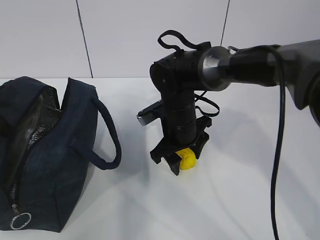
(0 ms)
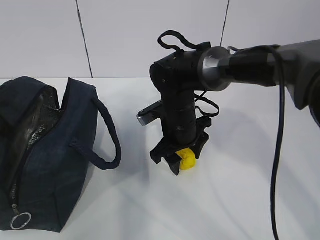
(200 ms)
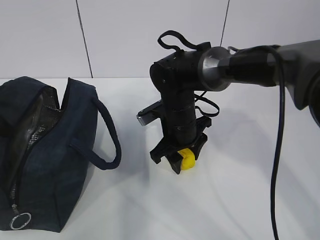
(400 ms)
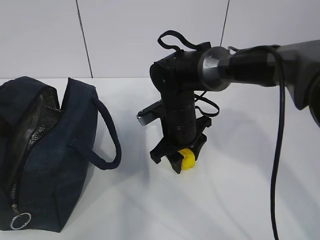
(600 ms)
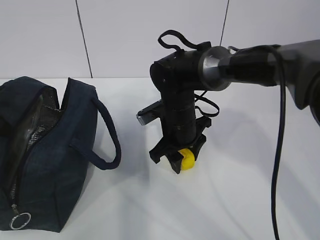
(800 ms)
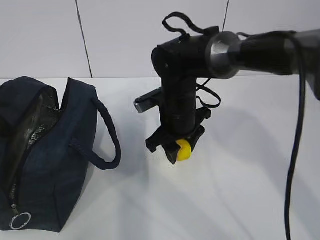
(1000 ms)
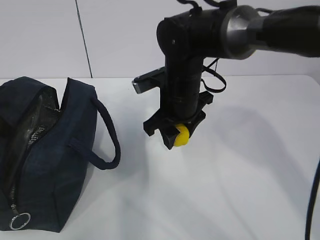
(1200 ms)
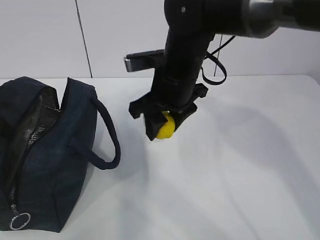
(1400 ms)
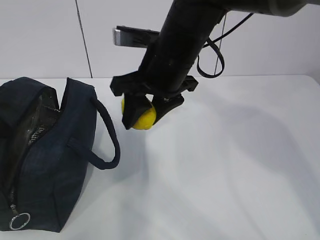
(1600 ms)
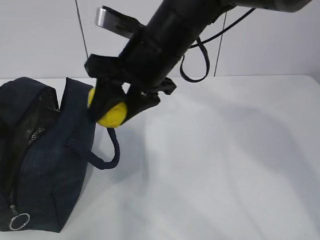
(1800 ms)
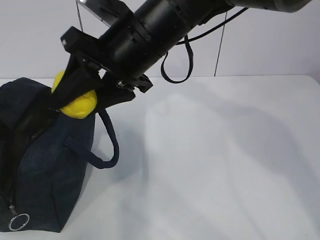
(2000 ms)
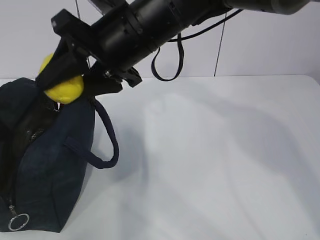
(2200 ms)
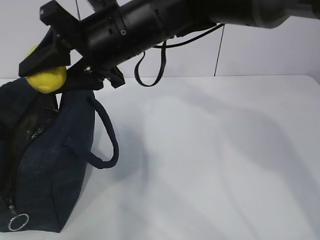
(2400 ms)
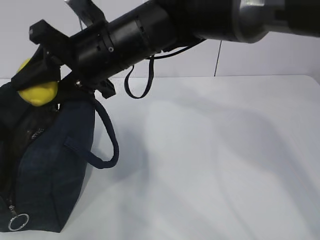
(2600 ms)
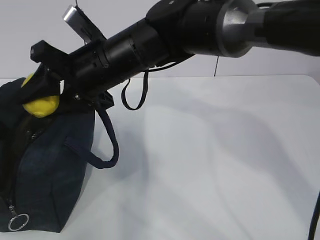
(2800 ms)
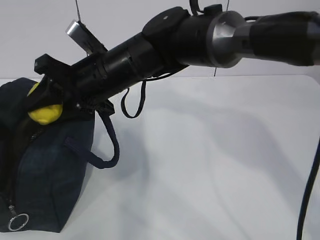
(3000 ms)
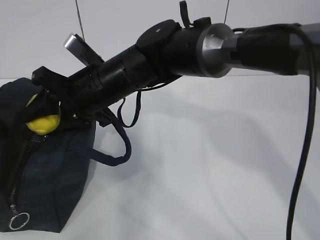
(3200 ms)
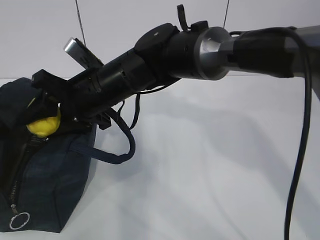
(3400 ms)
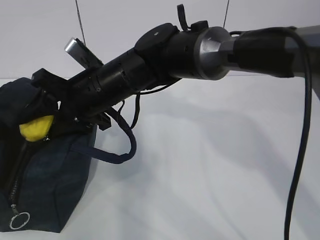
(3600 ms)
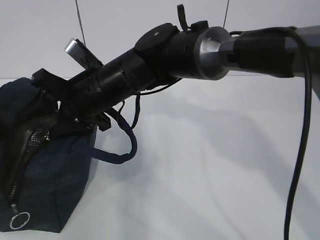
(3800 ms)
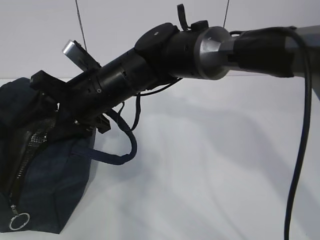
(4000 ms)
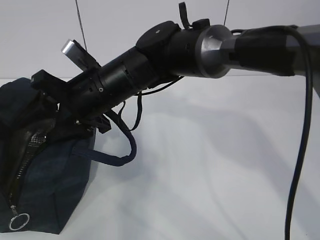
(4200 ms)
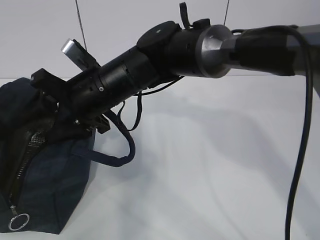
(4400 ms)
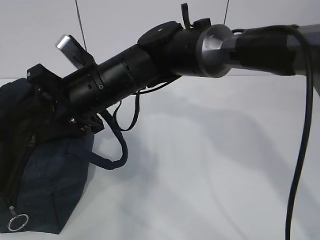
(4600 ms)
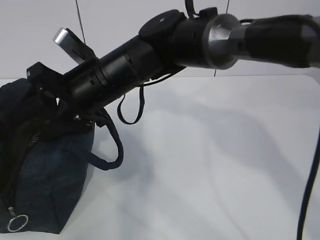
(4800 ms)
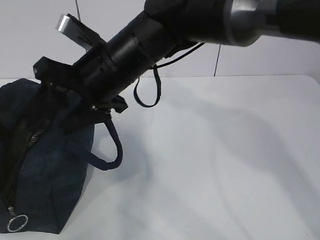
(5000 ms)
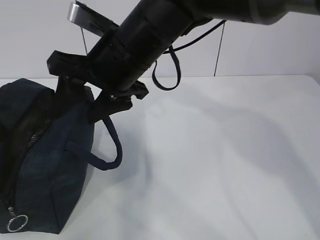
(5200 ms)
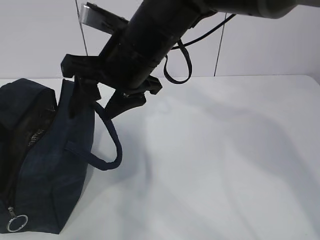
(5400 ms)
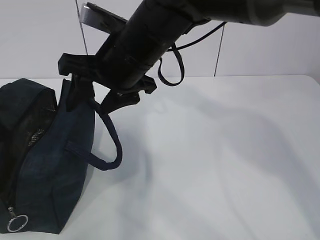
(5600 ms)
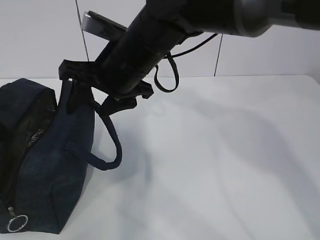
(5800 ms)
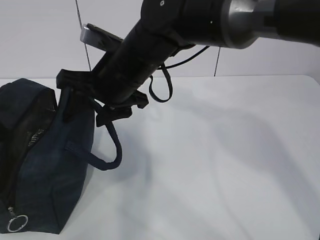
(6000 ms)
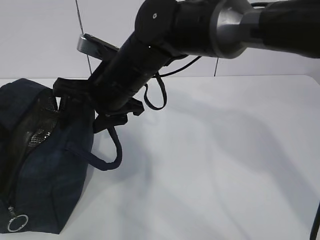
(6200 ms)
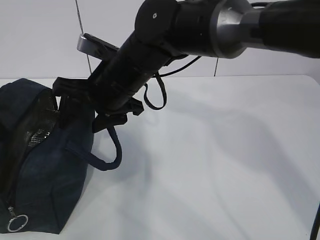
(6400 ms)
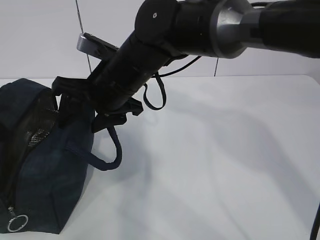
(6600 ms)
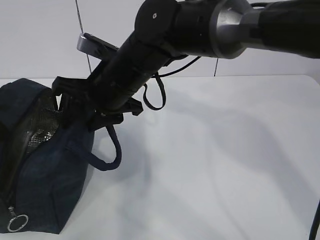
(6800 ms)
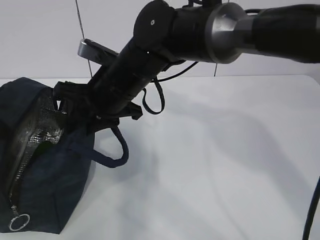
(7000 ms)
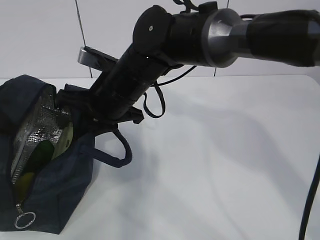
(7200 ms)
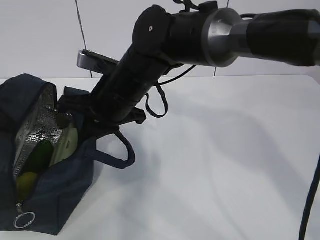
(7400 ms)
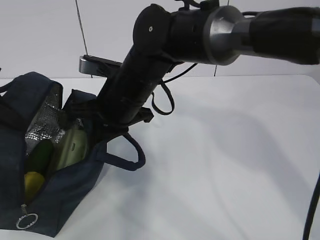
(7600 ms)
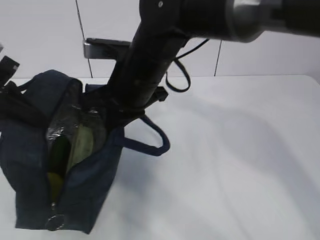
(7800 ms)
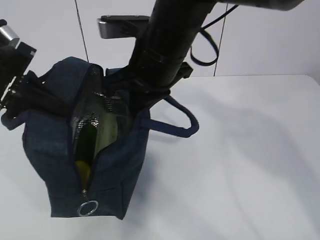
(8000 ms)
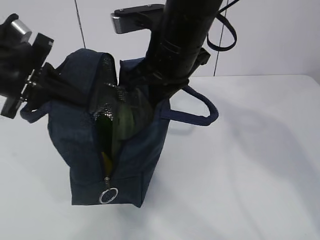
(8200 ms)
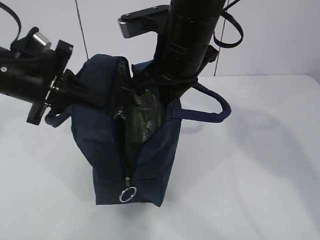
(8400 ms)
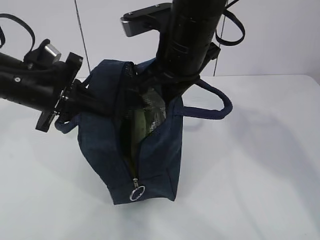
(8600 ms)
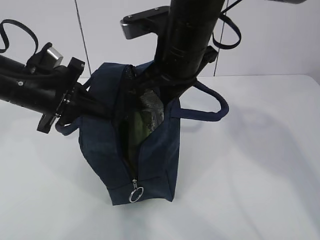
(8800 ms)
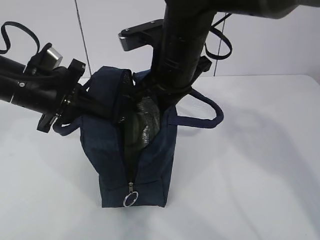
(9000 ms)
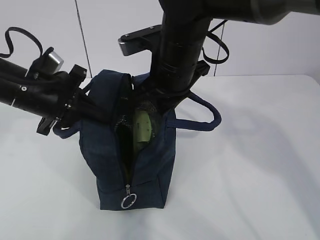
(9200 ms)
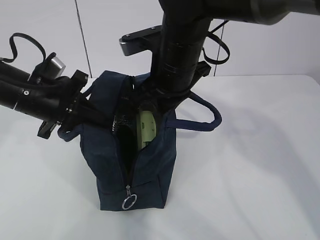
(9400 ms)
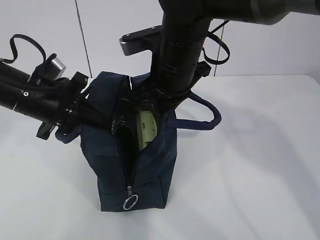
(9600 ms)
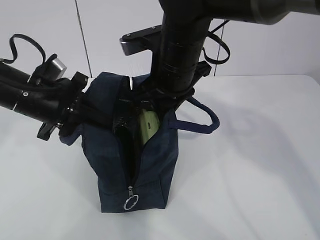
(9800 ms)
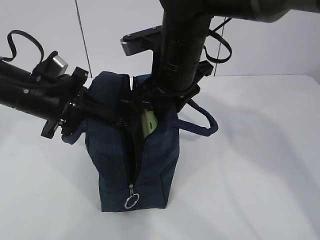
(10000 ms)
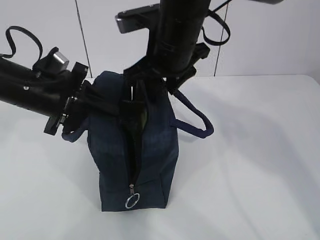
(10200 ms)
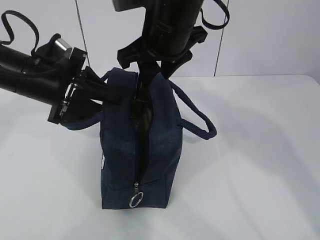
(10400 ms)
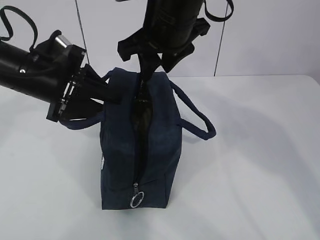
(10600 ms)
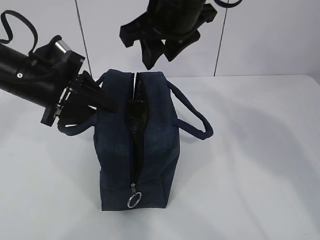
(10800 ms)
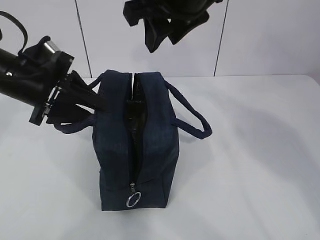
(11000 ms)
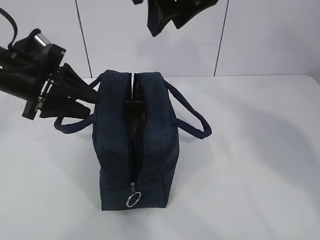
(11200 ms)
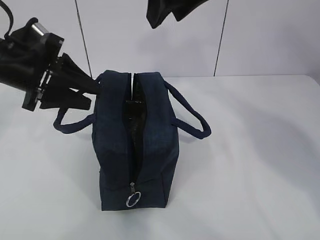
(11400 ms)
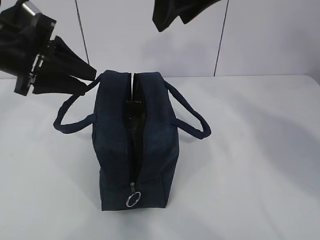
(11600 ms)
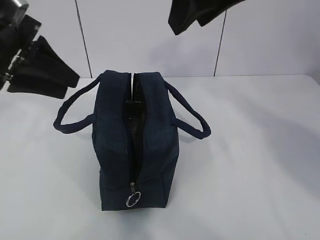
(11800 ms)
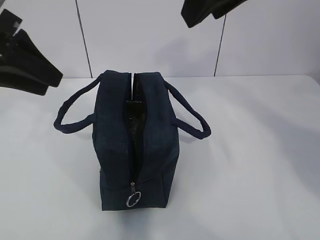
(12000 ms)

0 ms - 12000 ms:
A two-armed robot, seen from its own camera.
0 ms - 1600 ms: The right gripper heads upward, covering about 15 cm.
1600 ms - 3000 ms: The right gripper shifts approximately 10 cm to the left.
3000 ms - 4400 ms: The grippers stay close to where they were, moving slightly.
6000 ms - 7600 ms: The right gripper closes.
7600 ms - 9000 ms: The left gripper moves to the right, about 10 cm, while the right gripper travels to the right and upward by approximately 10 cm.
9000 ms - 10400 ms: The left gripper opens, while the right gripper opens up.
10400 ms - 12000 ms: The right gripper moves upward, backward and to the right, about 20 cm. The left gripper is displaced upward and backward by some 10 cm.

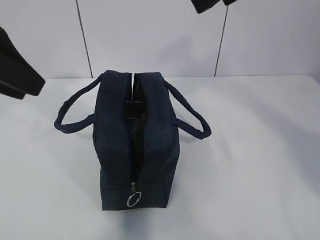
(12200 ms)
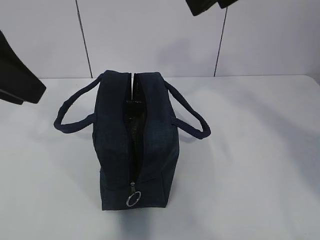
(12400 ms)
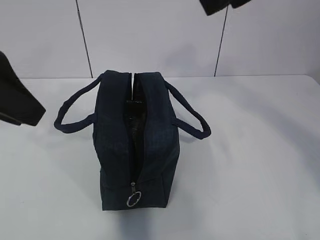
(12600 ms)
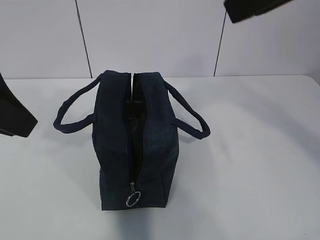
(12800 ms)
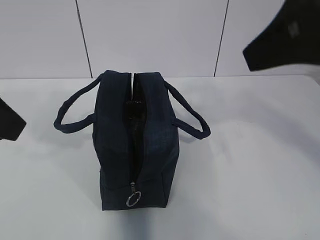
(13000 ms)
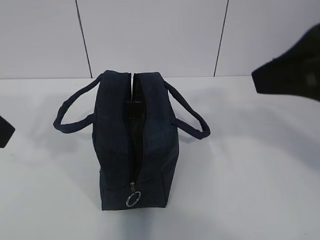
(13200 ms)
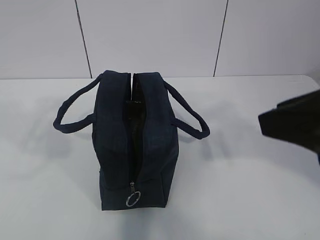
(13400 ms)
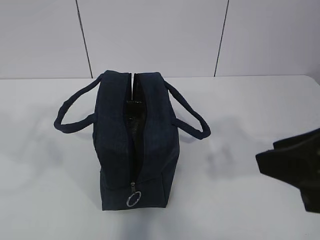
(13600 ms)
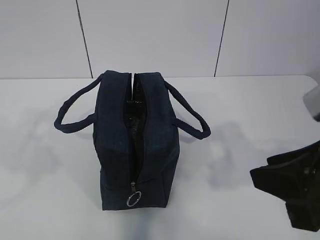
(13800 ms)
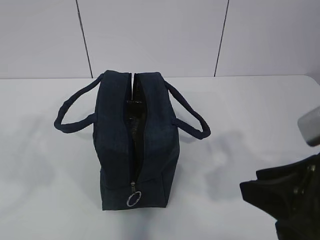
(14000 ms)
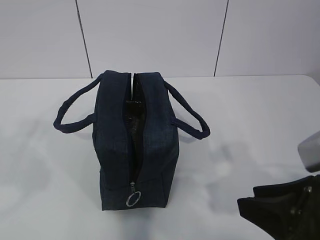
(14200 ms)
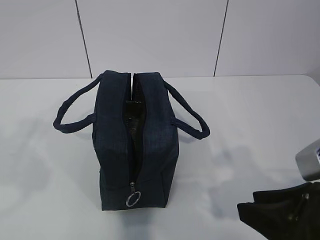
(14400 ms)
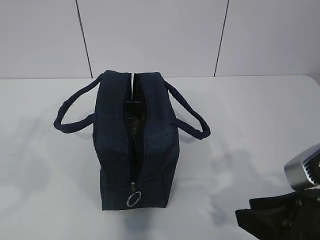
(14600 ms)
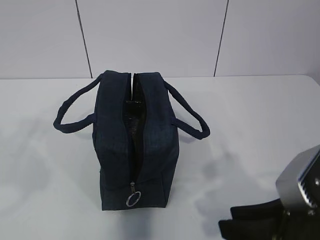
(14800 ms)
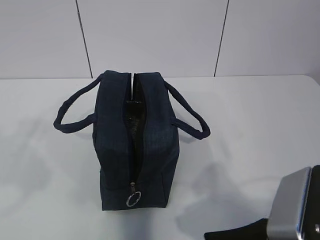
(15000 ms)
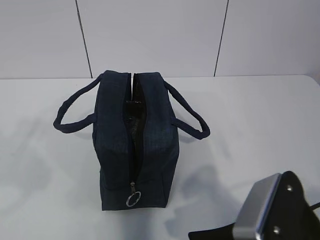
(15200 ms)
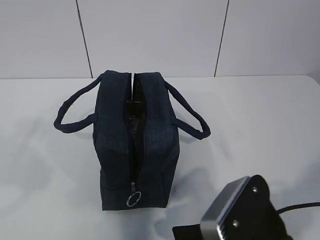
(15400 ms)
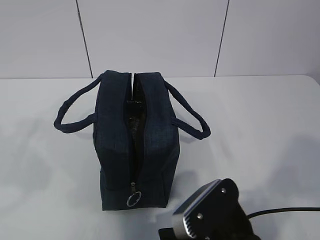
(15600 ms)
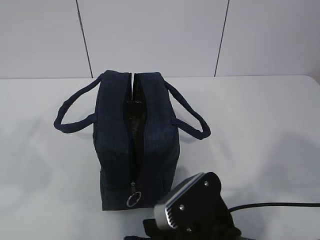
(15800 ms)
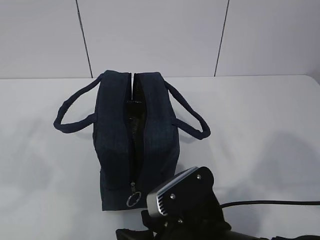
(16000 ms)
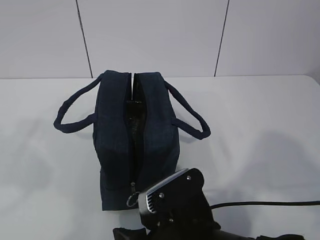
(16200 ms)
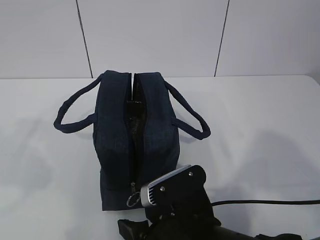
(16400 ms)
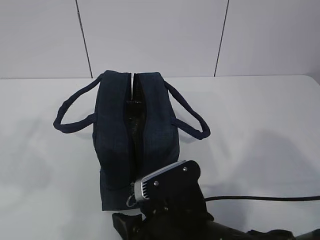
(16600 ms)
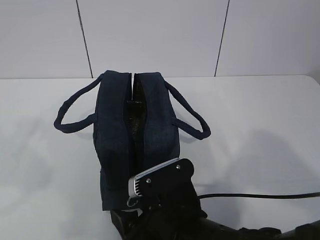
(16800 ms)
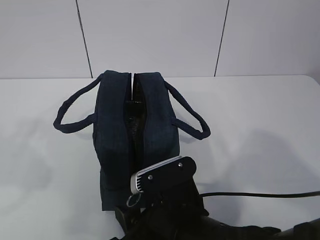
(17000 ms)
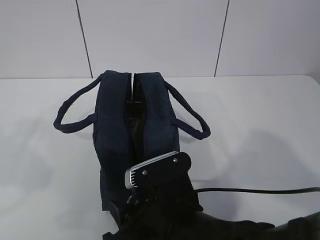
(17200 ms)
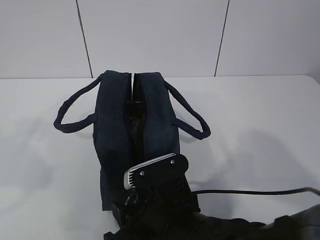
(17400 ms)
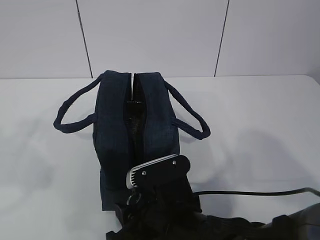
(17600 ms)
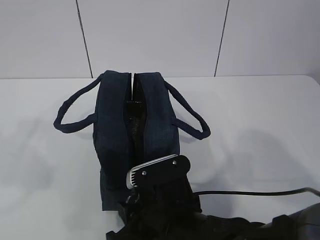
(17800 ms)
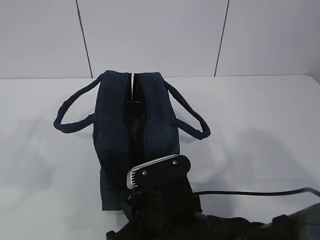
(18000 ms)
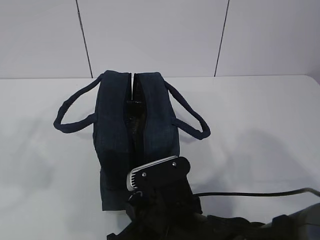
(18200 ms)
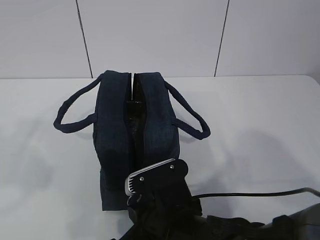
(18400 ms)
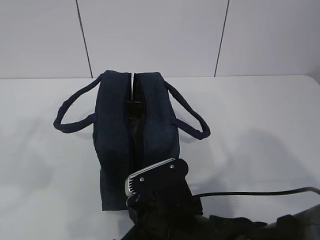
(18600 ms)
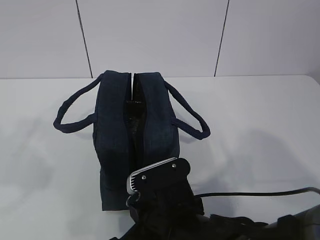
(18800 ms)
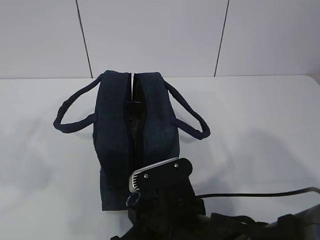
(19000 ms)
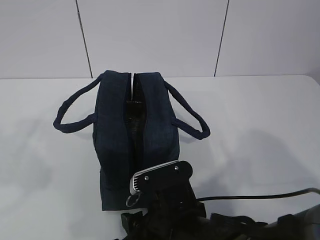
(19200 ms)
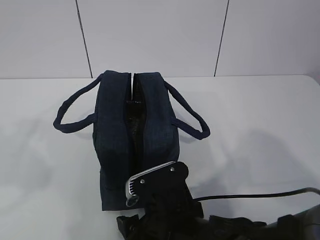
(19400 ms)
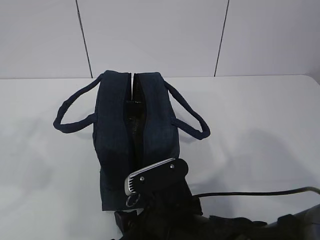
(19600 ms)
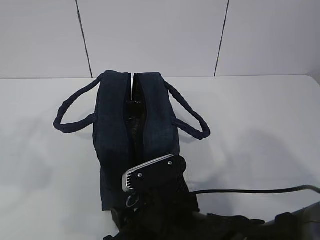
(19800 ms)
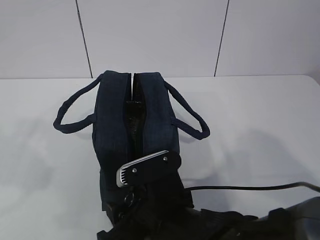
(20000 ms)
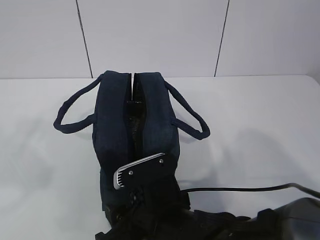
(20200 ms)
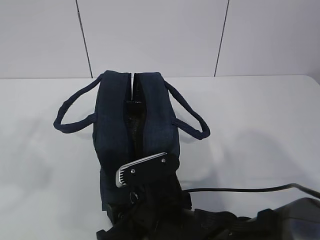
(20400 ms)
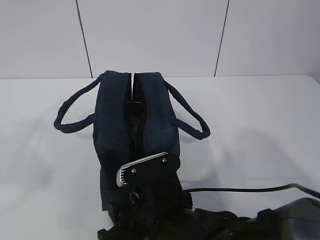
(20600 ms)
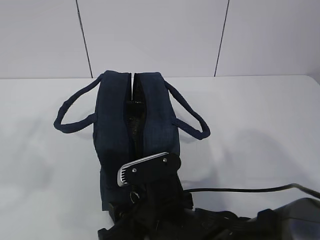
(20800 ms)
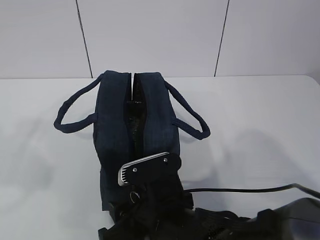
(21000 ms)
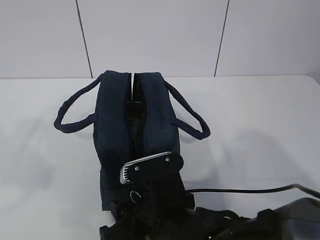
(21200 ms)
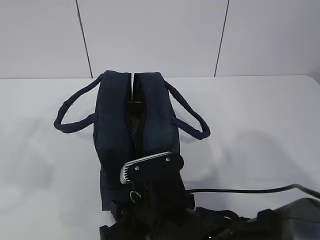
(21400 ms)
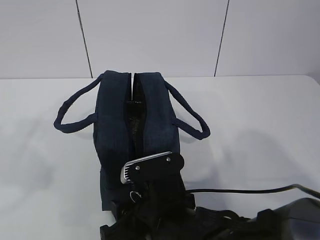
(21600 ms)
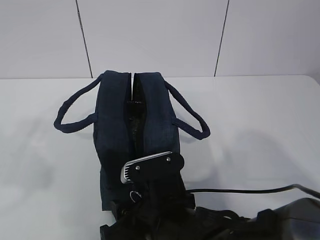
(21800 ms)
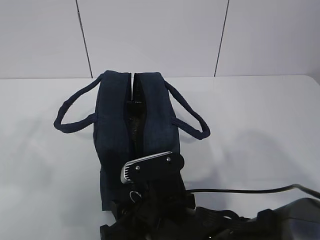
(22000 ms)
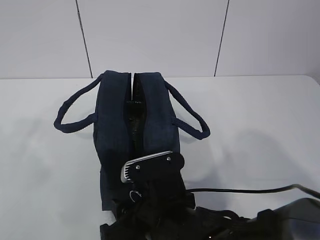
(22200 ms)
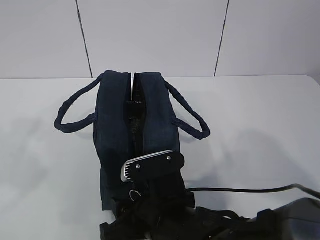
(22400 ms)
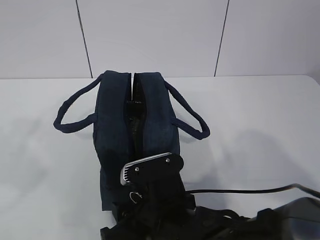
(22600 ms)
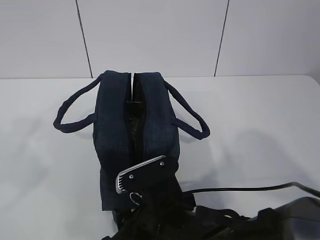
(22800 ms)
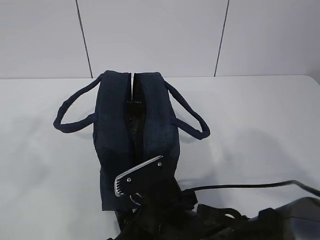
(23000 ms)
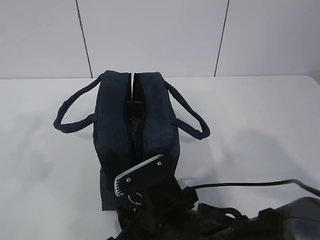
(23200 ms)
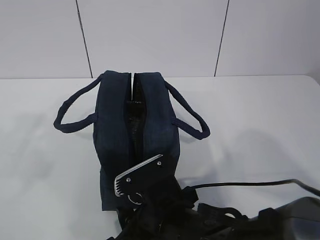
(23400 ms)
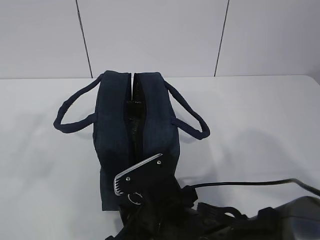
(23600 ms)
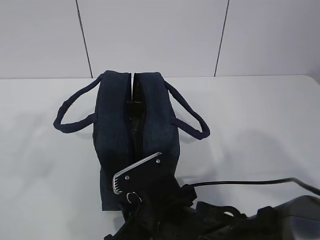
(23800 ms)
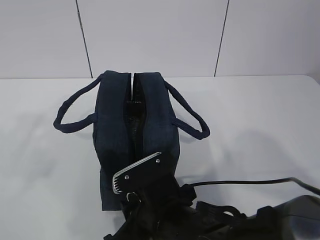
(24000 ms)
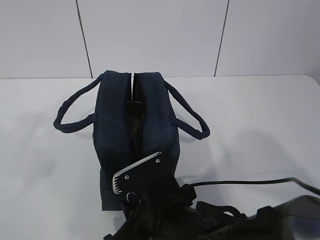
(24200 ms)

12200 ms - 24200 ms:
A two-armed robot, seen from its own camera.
Step, 12200 ms - 20000 ms: Grab the lunch bag with your left hand.
12200 ms - 13800 ms: The left gripper goes approximately 15 cm backward. Meanwhile the right gripper moves downward and backward, approximately 20 cm.
13800 ms - 15200 ms: The right gripper moves downward and to the left, approximately 10 cm.
15200 ms - 16600 ms: The right gripper is displaced to the left, downward and forward by about 10 cm.
16600 ms - 18200 ms: The right gripper closes.
18200 ms - 19800 ms: The right gripper opens up.
19800 ms - 21200 ms: Both grippers stay about where they are.
22600 ms - 24200 ms: The right gripper closes.
